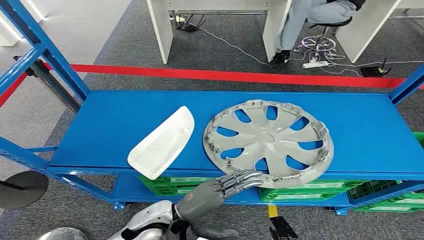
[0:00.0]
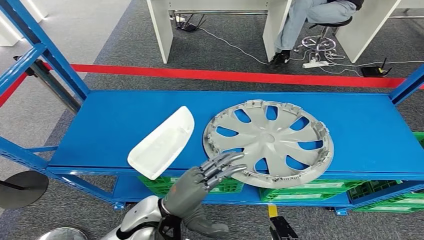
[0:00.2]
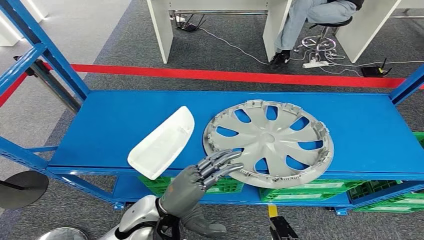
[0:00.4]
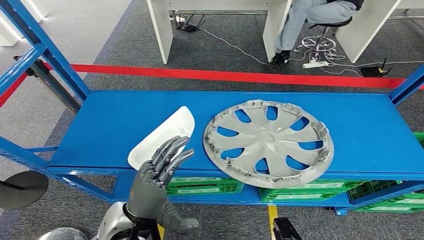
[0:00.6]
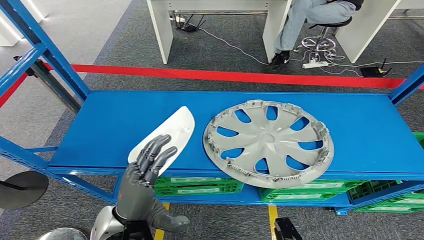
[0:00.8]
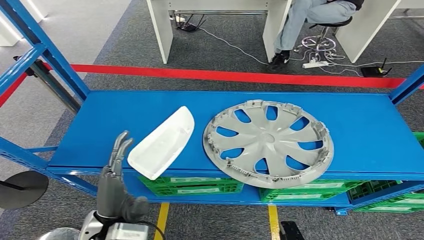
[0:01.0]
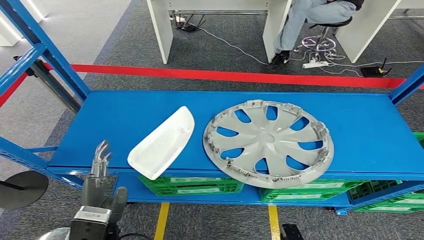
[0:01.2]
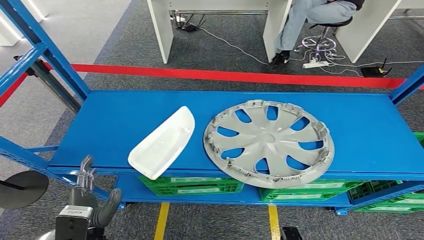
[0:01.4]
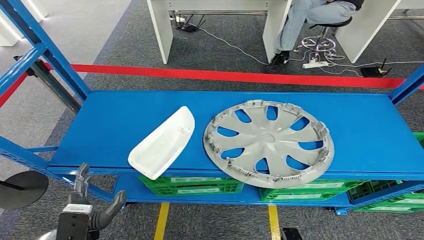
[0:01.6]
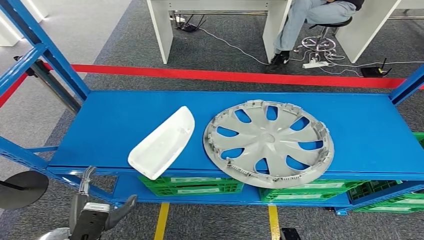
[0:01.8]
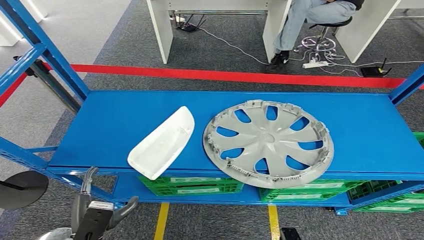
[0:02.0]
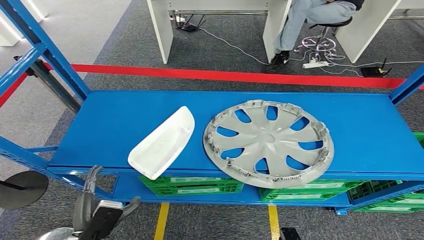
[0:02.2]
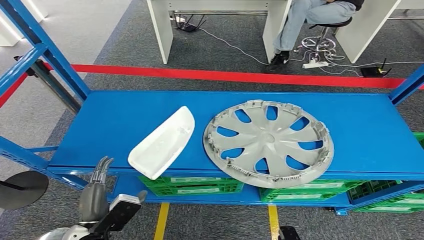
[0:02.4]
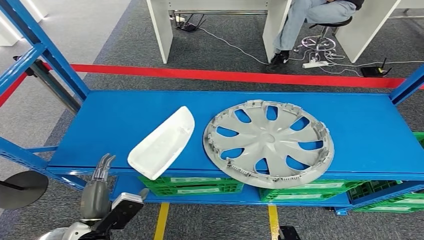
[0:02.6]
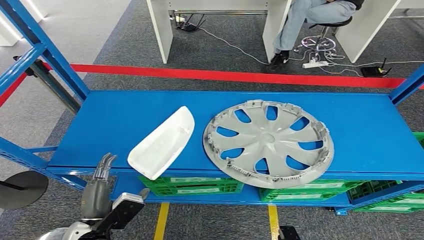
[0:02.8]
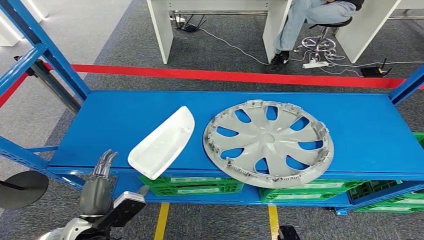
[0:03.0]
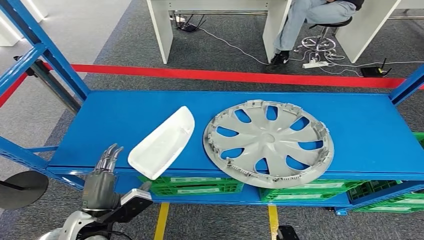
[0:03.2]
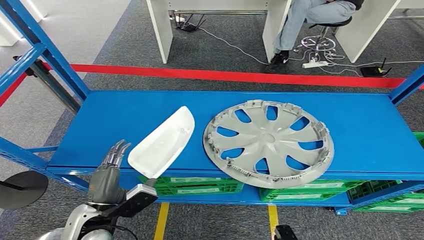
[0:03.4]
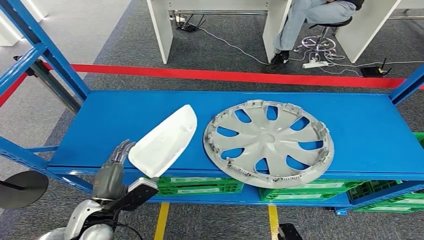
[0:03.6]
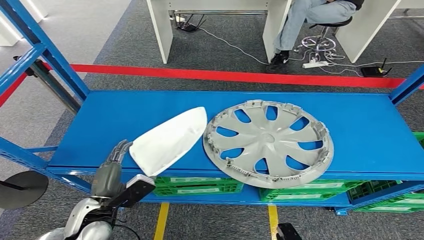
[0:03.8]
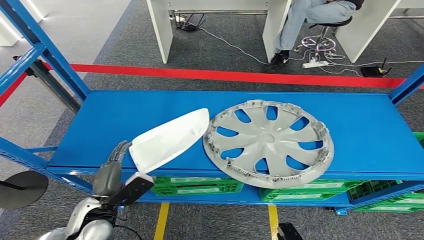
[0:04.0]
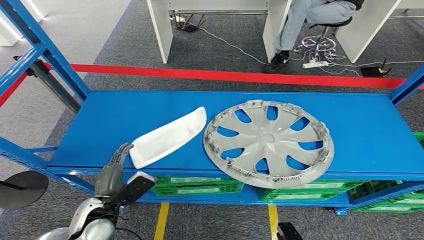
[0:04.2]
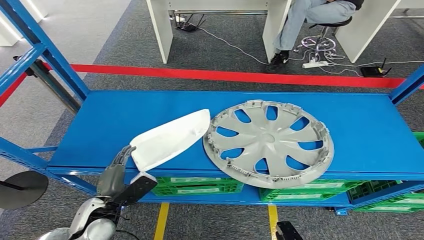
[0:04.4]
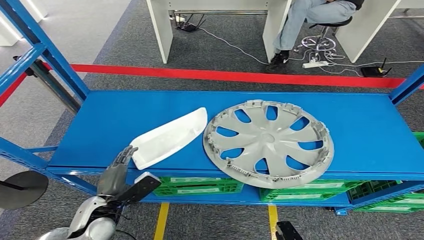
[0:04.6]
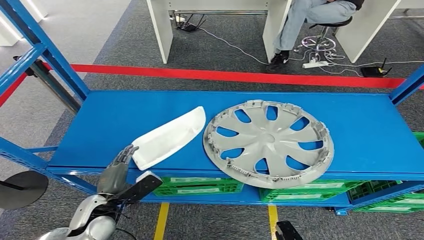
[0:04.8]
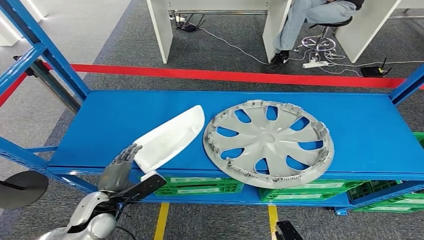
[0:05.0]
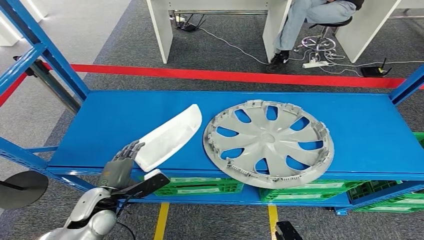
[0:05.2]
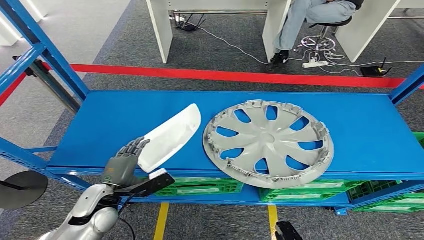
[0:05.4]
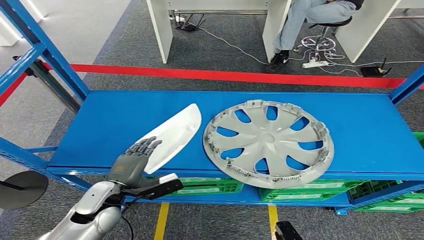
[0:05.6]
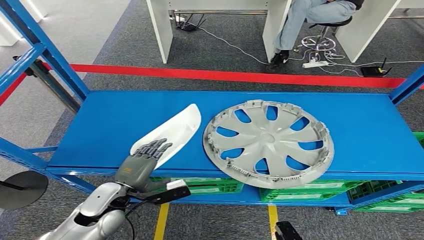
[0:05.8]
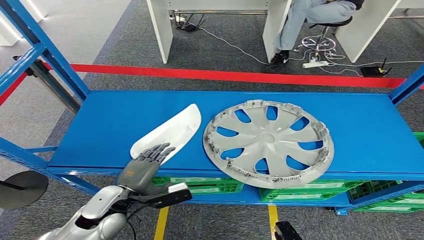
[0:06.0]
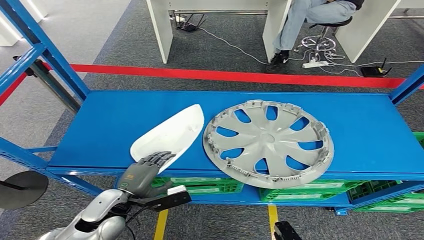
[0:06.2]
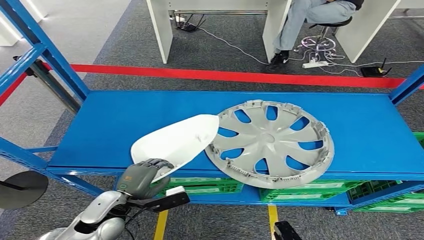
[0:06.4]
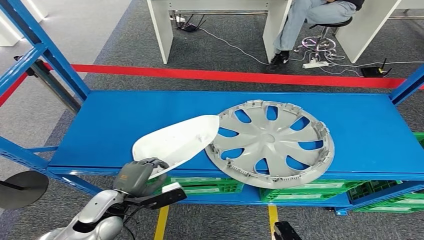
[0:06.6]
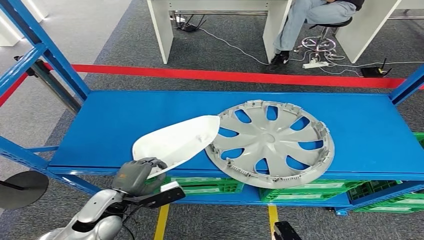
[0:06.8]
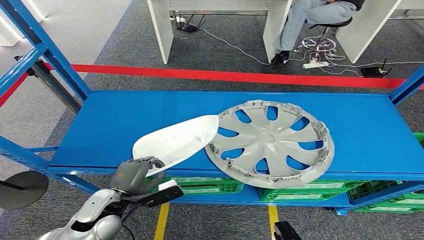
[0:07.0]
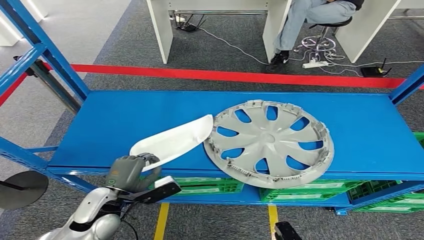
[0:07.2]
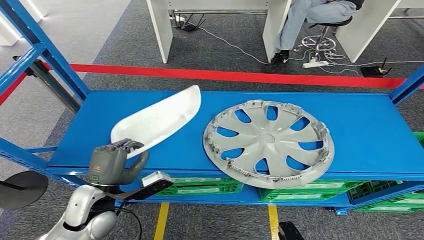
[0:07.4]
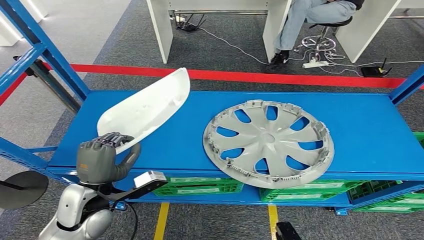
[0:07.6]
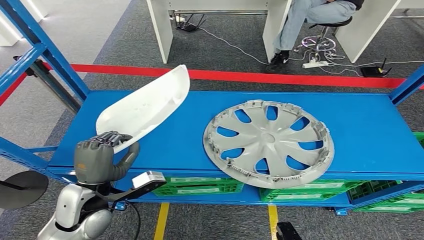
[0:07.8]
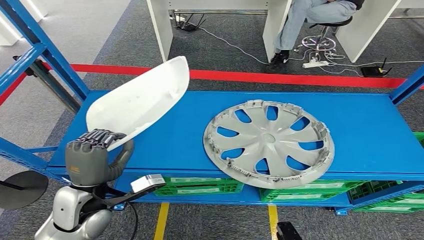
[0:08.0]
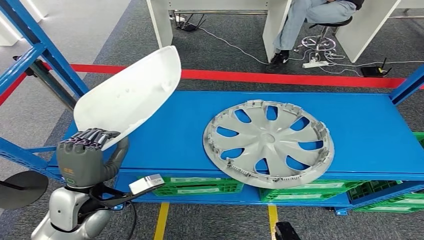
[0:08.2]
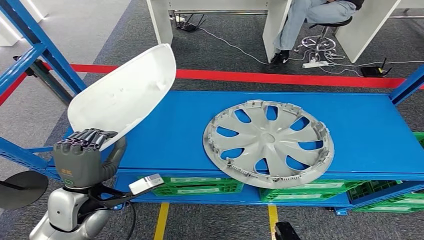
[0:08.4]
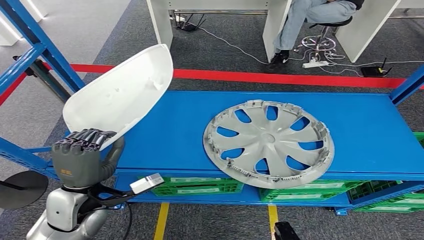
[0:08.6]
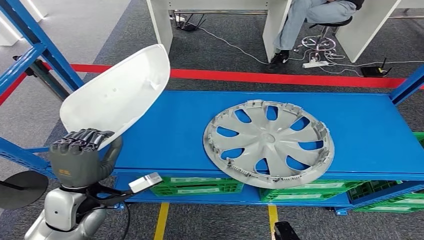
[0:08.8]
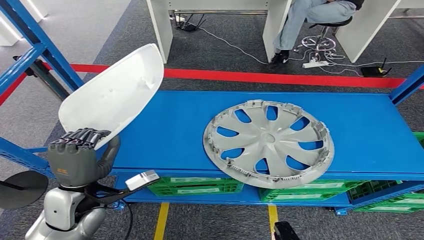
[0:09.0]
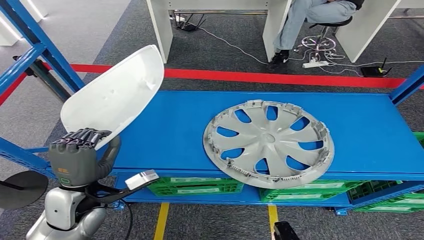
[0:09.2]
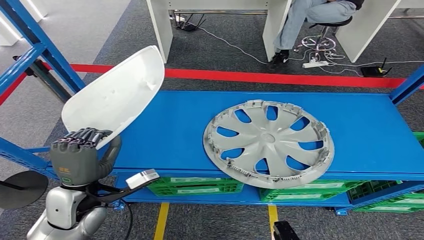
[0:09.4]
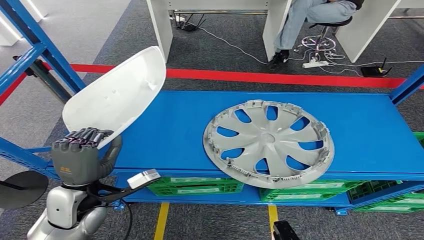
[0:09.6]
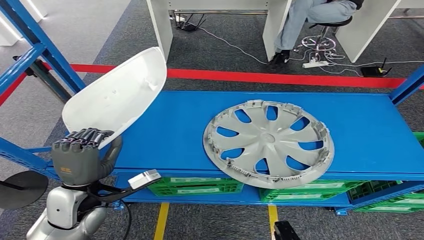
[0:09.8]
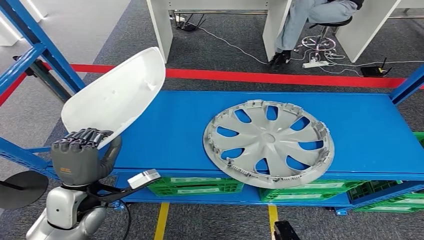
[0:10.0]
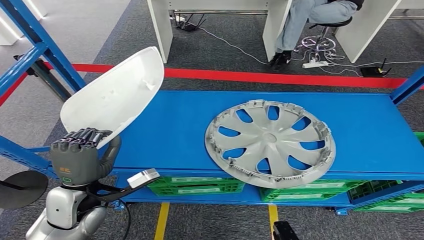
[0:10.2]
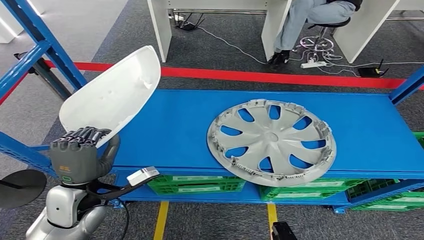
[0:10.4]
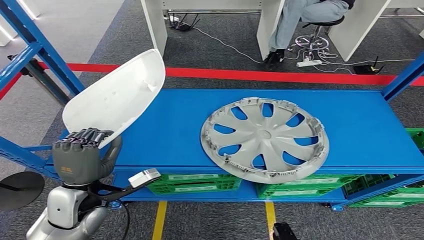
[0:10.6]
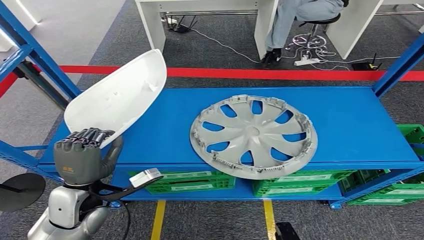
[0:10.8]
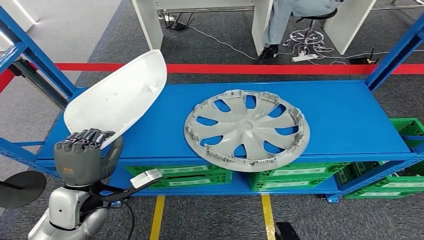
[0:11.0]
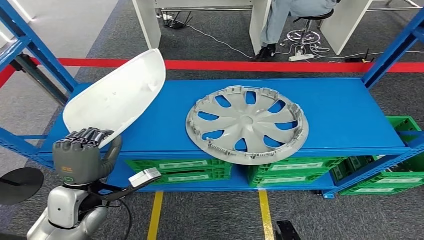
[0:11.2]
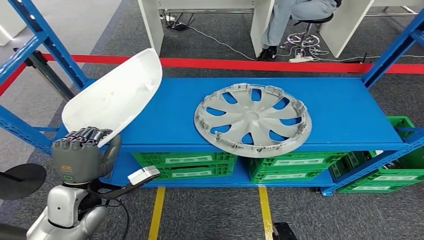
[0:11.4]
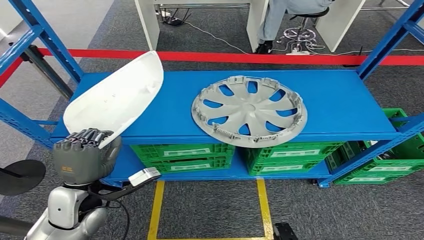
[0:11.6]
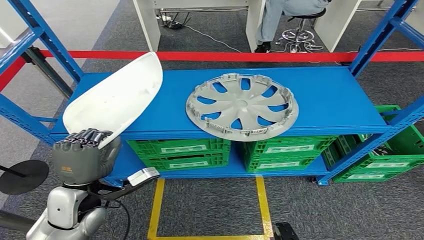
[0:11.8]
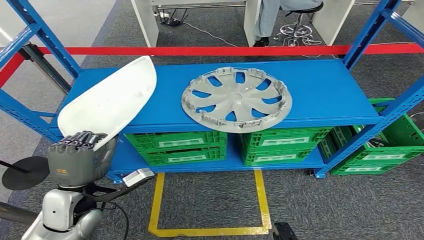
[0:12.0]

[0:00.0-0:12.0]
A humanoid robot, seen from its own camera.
0:03.0 to 0:04.4: The left hand is displaced forward by roughly 5 cm.
0:06.0 to 0:07.6: The left hand goes roughly 5 cm upward.
0:09.0 to 0:10.4: Neither hand changes place.

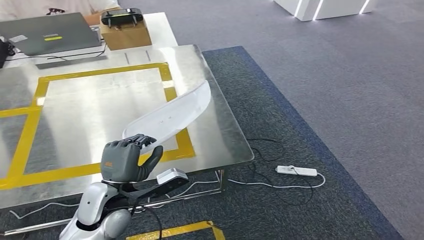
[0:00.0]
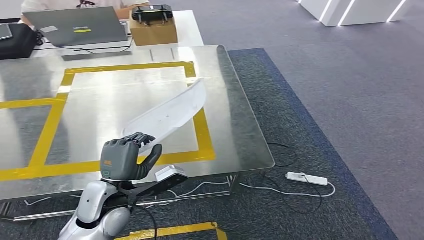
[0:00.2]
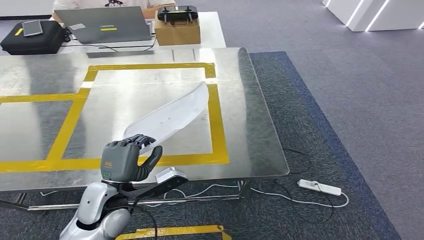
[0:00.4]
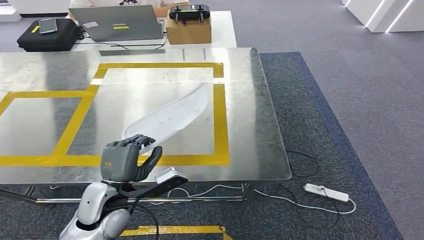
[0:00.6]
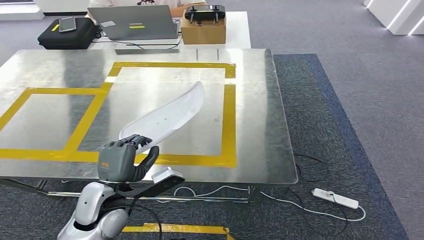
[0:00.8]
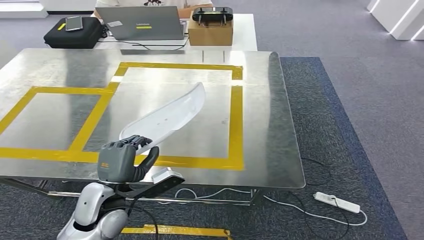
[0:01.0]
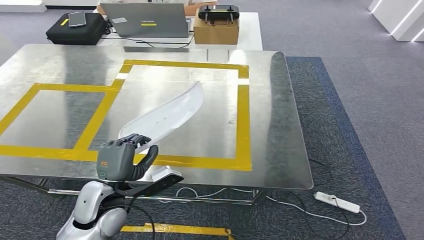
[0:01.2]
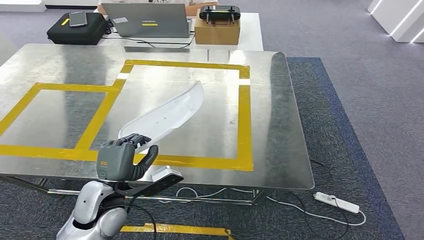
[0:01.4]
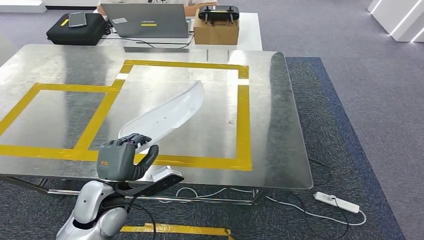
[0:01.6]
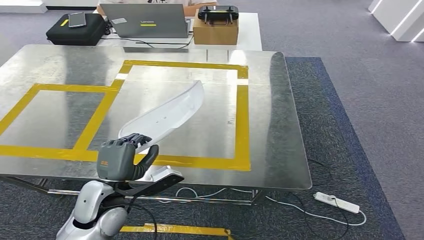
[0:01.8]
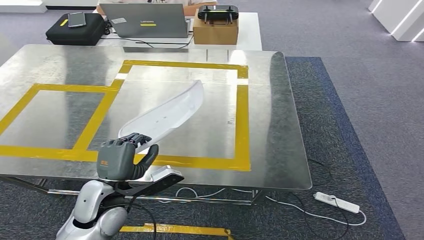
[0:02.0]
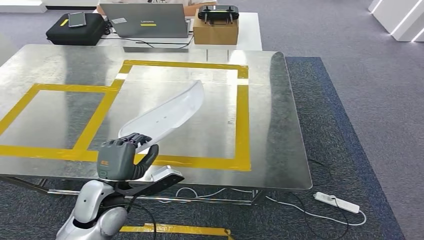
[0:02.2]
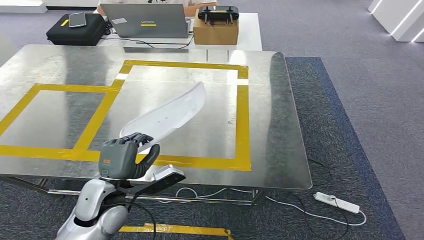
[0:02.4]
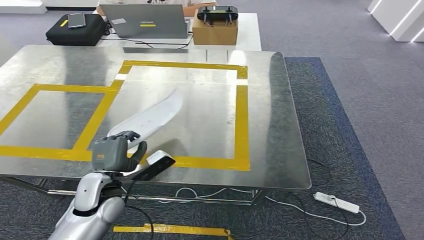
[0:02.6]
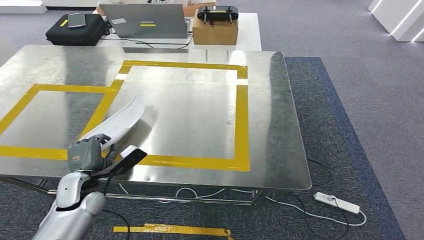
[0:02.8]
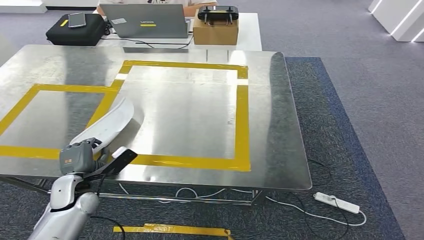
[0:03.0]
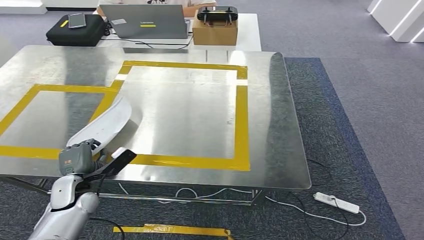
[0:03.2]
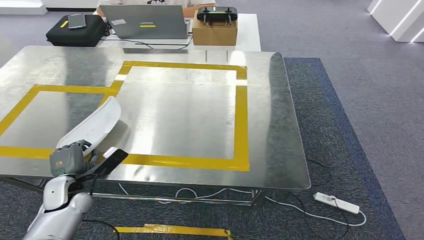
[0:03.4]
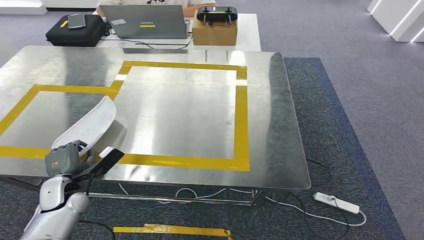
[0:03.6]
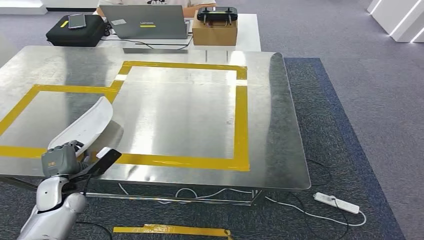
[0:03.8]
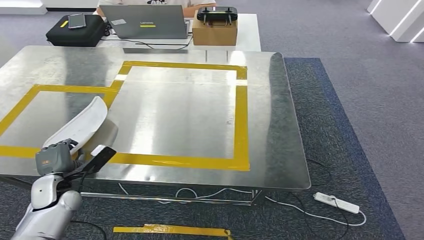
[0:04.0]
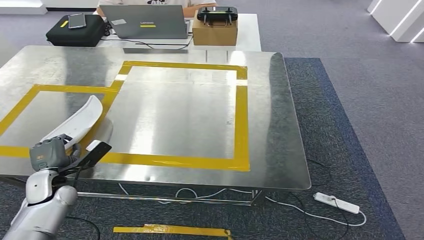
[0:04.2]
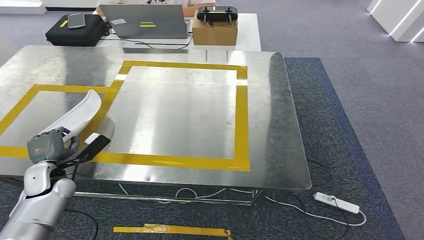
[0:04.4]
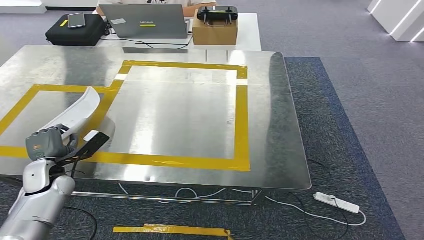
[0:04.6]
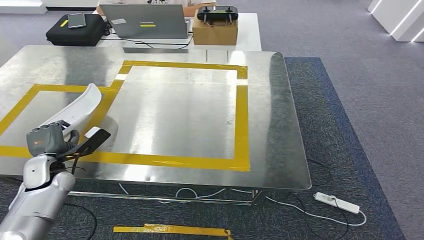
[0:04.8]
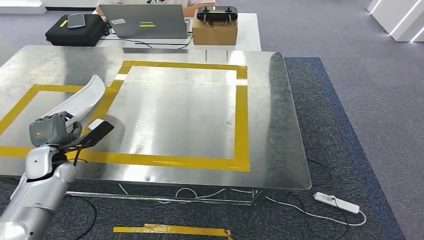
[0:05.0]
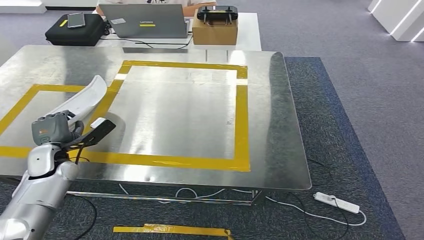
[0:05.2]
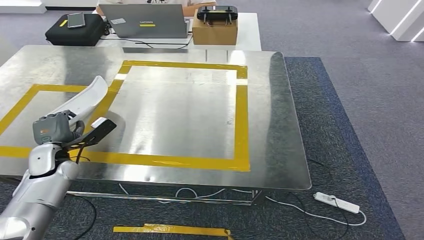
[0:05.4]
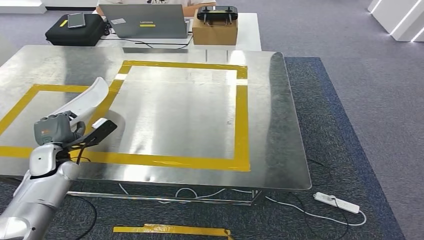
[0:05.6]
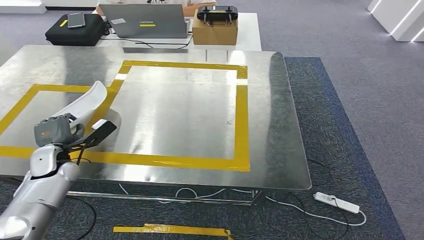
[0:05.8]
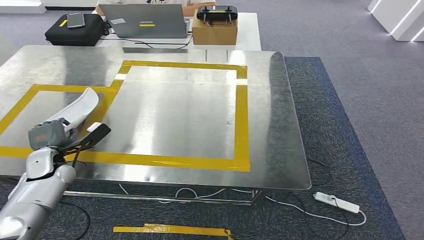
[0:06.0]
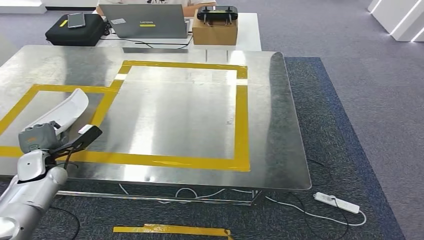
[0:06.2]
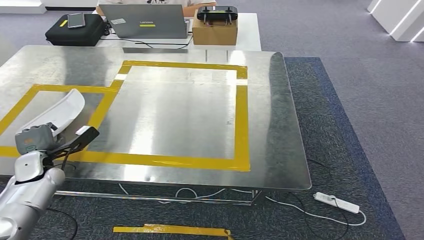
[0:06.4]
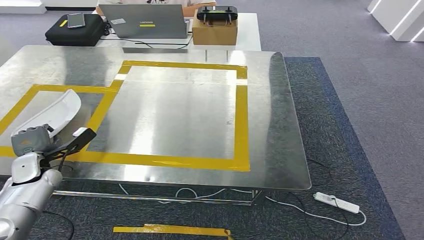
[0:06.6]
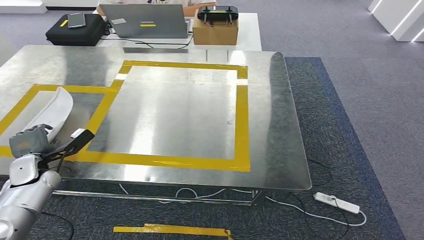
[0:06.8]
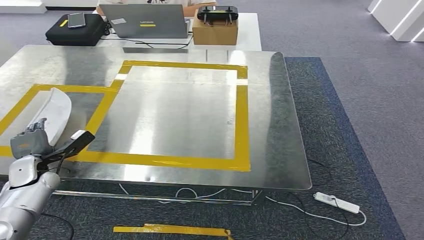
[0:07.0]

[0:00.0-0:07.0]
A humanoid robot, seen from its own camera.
Step, 0:00.0 to 0:02.8: Move the small parts to the workbench.
0:01.4 to 0:02.8: The left hand heads to the left and downward, covering some 10 cm.
0:02.8 to 0:04.2: The left hand moves to the left, approximately 10 cm.
0:04.2 to 0:05.6: The left hand moves forward, about 5 cm.
0:05.6 to 0:07.0: The left hand moves to the left, approximately 5 cm.
